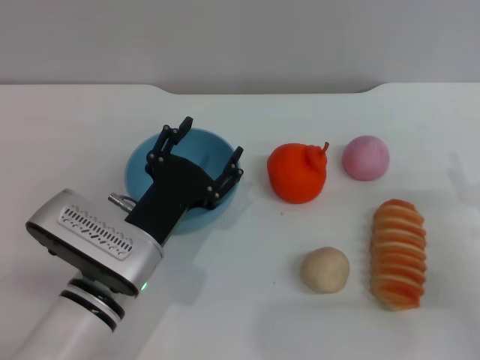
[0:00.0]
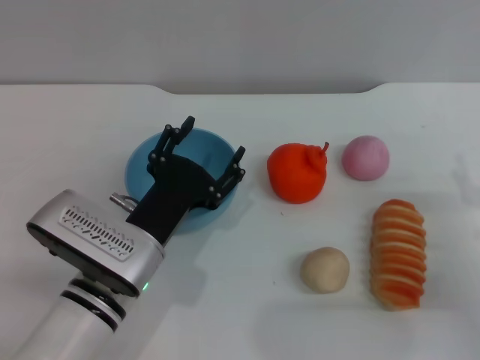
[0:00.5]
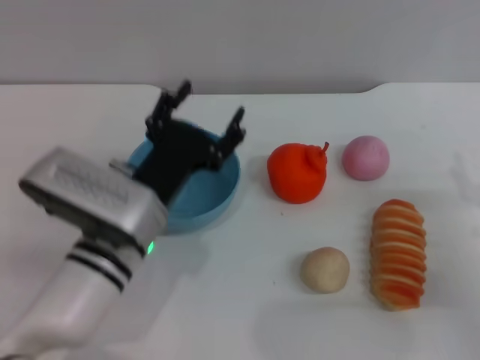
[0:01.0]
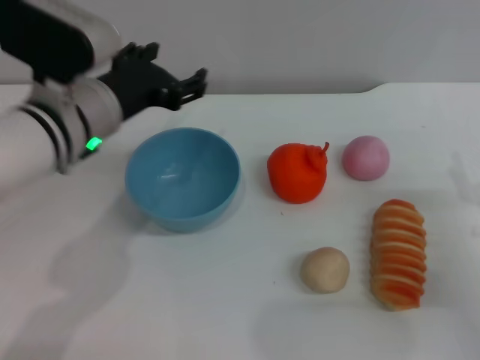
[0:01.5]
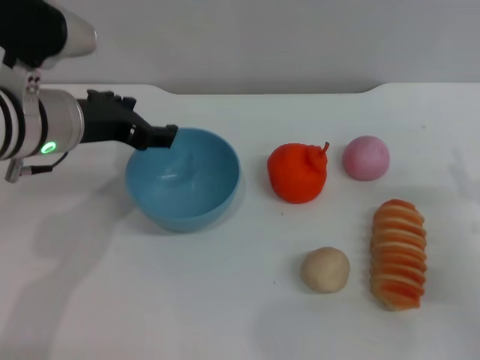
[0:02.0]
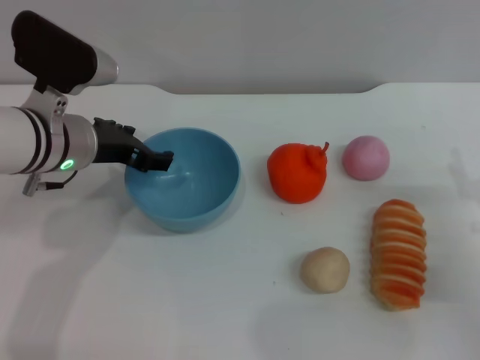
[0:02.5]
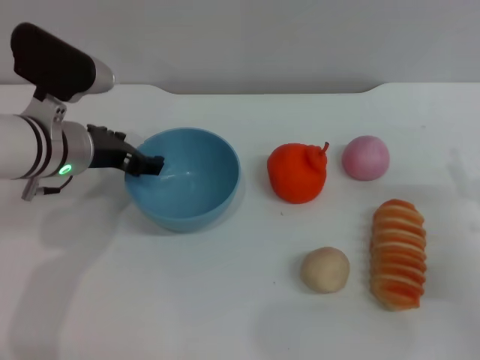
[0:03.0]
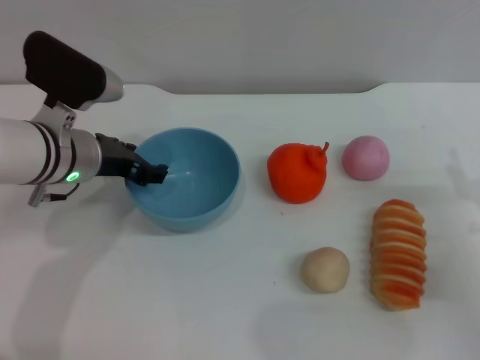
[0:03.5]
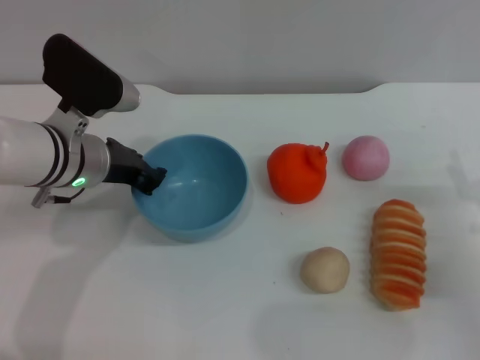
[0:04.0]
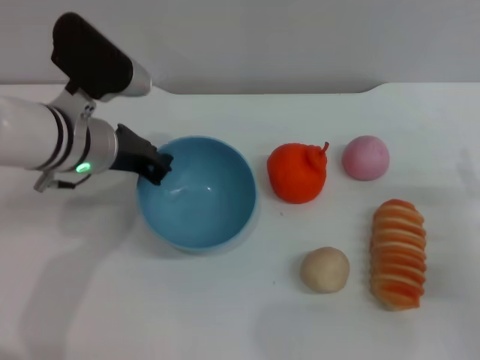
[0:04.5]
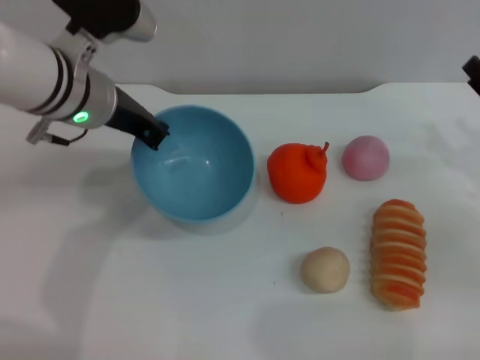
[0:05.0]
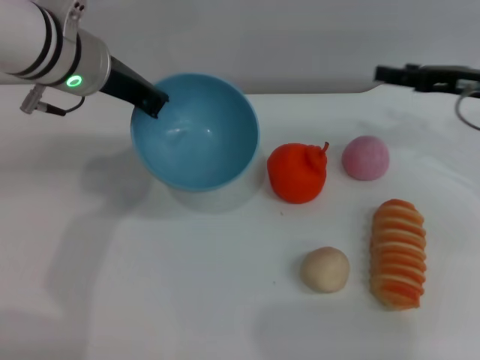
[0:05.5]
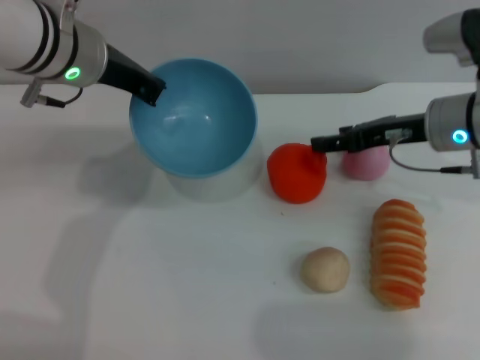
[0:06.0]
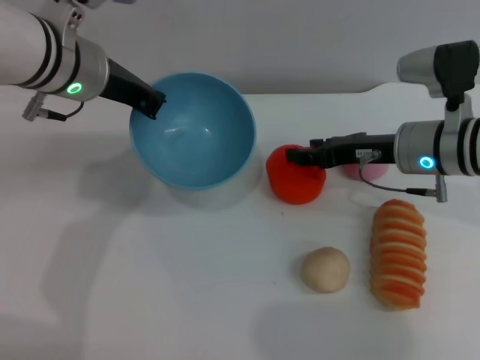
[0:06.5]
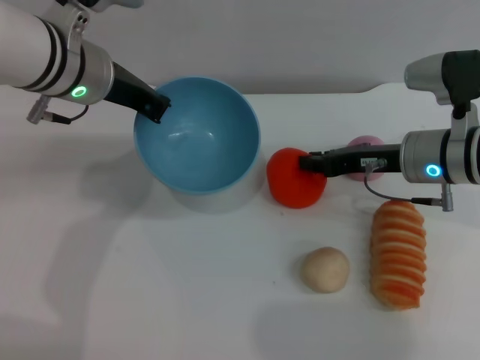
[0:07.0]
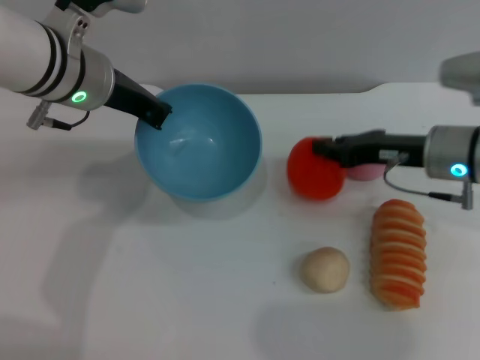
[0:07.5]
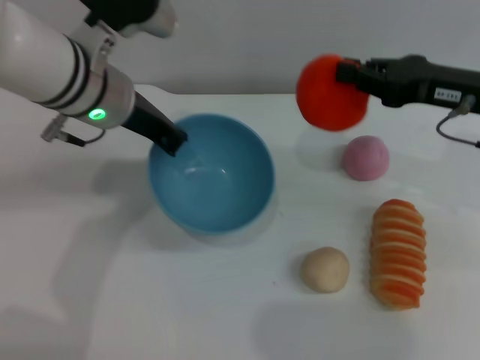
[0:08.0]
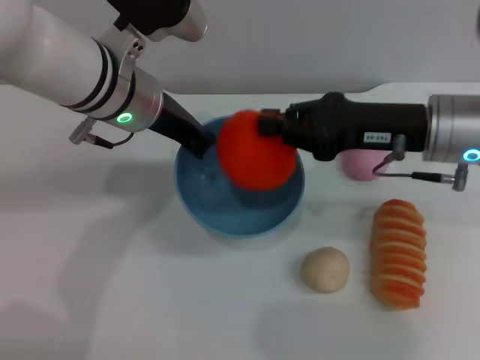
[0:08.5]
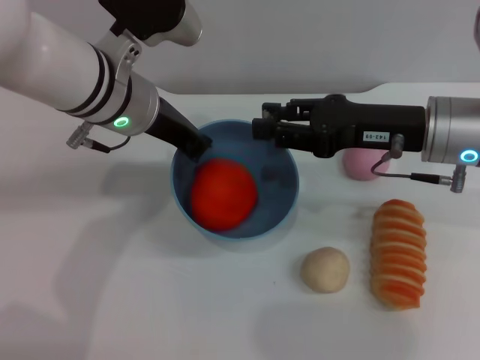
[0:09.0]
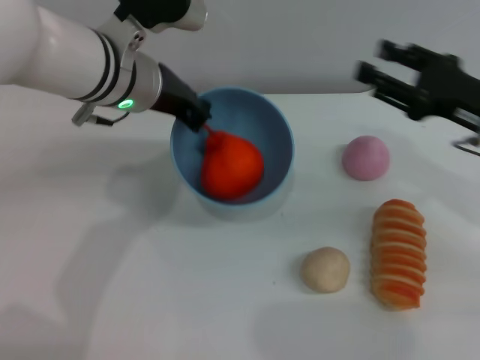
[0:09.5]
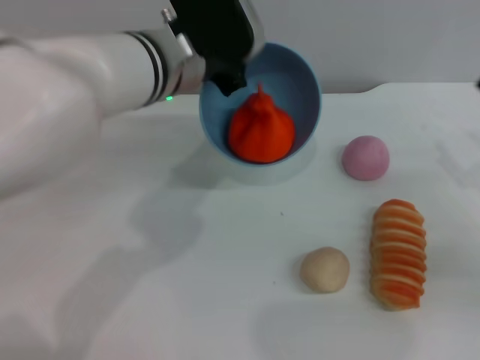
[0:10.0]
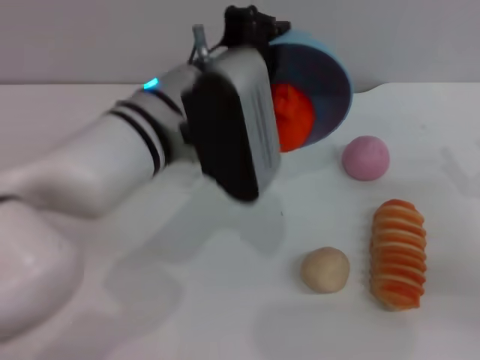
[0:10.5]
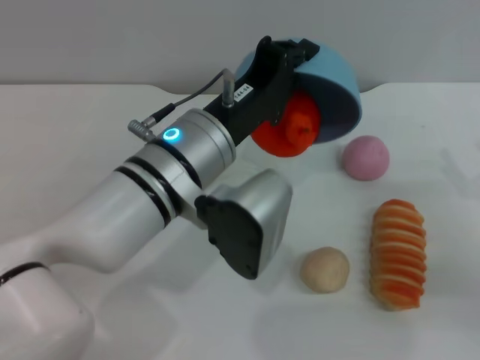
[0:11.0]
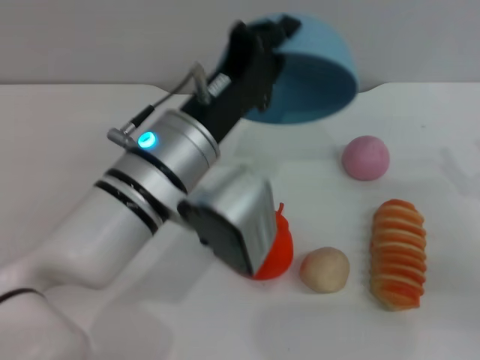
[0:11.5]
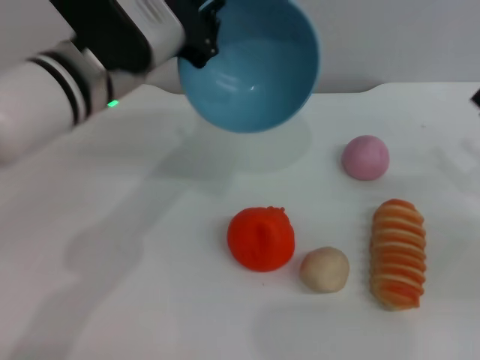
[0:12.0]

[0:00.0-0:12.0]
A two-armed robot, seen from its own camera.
Task of the whole recording: put the orange into the blue bowl and pour it out repeatedly.
Step, 0:00.0 to 0:05.0: Pick up the bowl with the left gripper.
Step, 0:05.5 to 0:07.5: Pick up the orange with the right gripper.
Step, 0:08.0 to 0:09.0: Place the orange into the bowl.
Step, 0:09.5 to 0:11.5: Pour the orange out of the bowl.
0:00.0 to 0:02.0: The left gripper goes some 20 cm upward, forward and to the left.
0:02.0 to 0:04.0: The left gripper goes roughly 5 cm downward, and closes up.
0:04.0 to 0:06.0: The right gripper is displaced forward, upward and to the left by approximately 20 cm, while the left gripper moves upward, approximately 10 cm, and closes.
0:06.0 to 0:08.0: The right gripper travels upward by approximately 5 cm, and closes.
0:08.0 to 0:10.0: The right gripper shifts about 15 cm downward, to the right and backward, and opens its fingers, while the left gripper is displaced to the right by some 5 cm.
0:10.0 to 0:12.0: The left gripper goes backward and returns, some 10 cm each way.

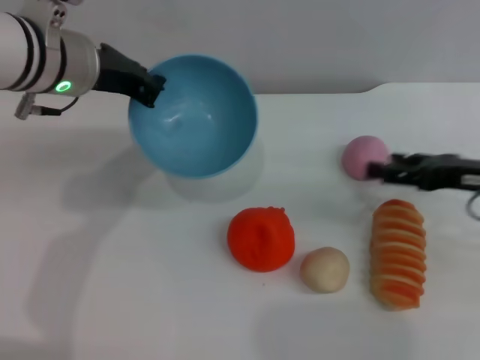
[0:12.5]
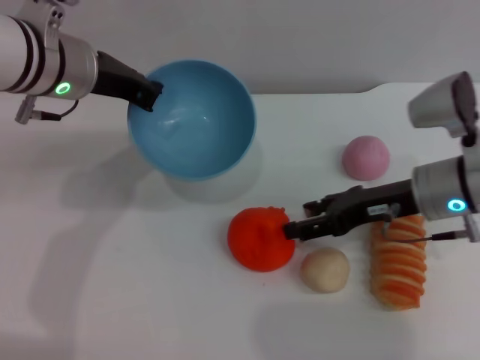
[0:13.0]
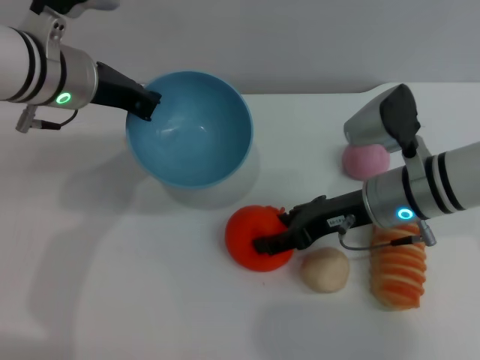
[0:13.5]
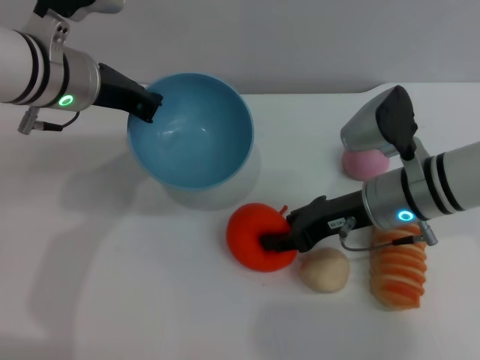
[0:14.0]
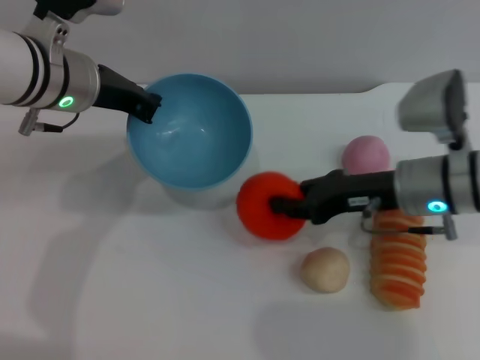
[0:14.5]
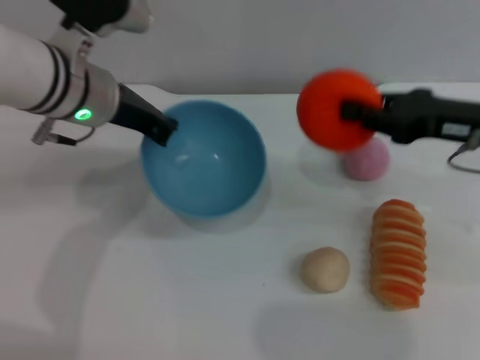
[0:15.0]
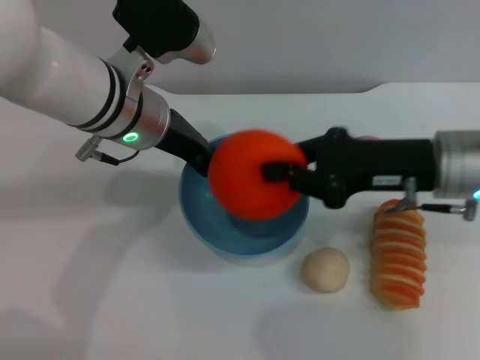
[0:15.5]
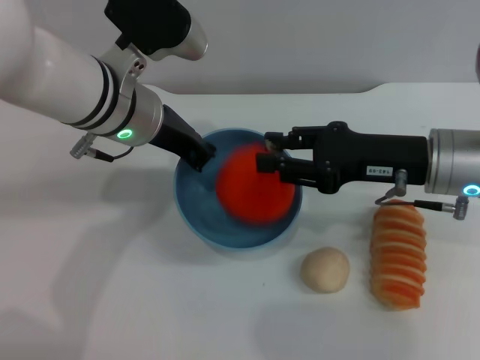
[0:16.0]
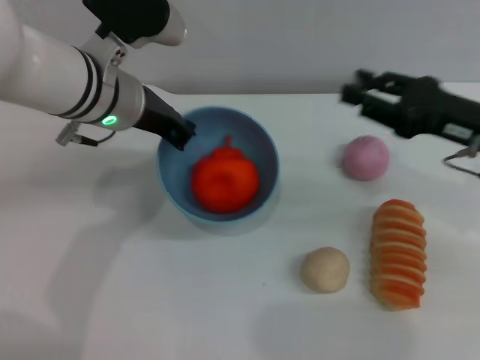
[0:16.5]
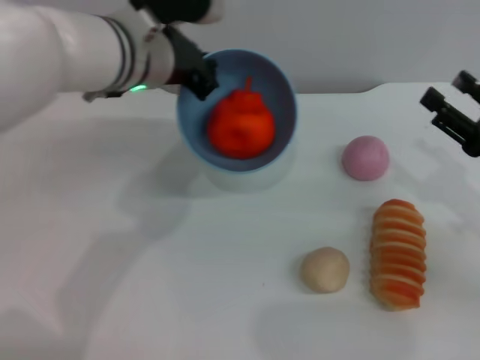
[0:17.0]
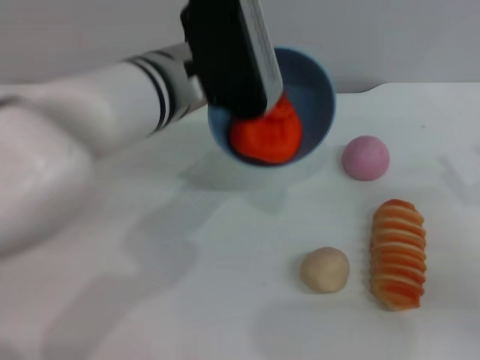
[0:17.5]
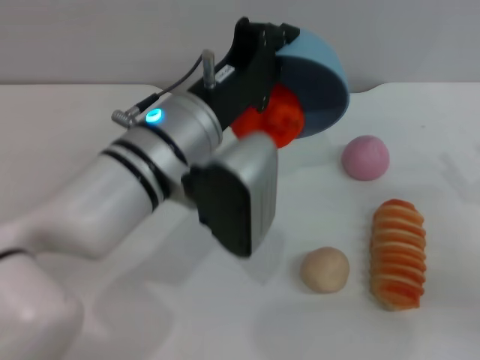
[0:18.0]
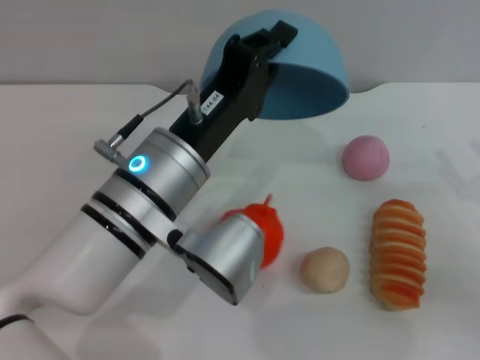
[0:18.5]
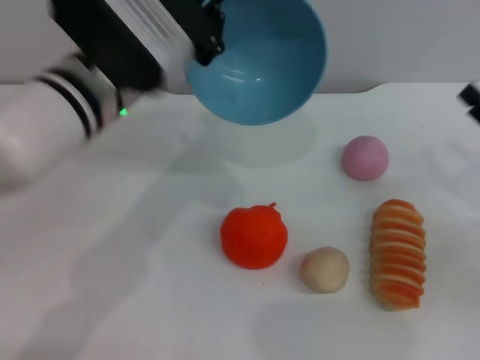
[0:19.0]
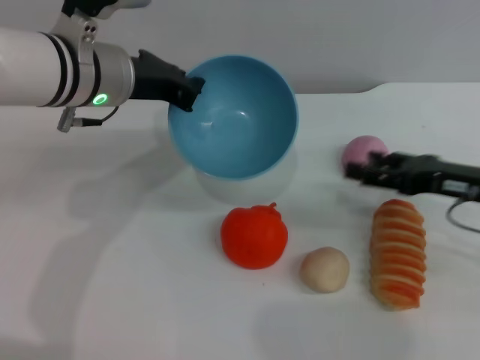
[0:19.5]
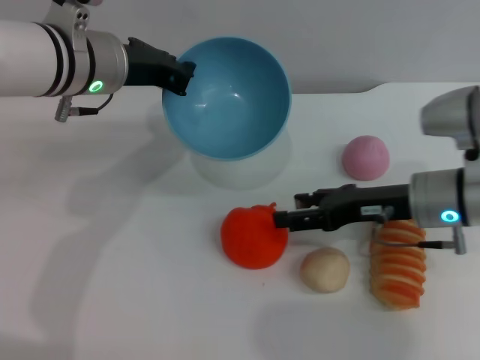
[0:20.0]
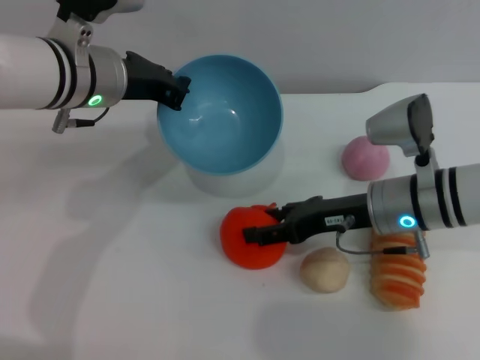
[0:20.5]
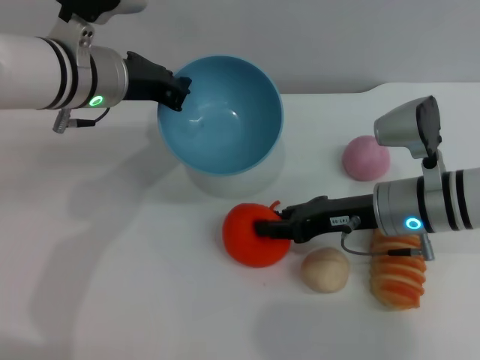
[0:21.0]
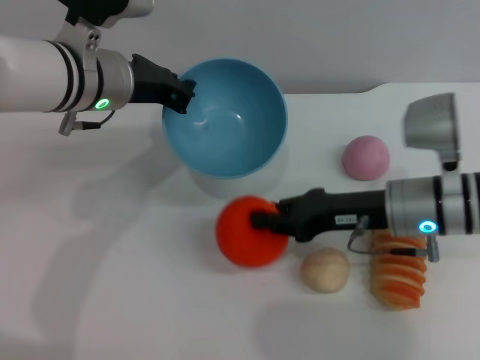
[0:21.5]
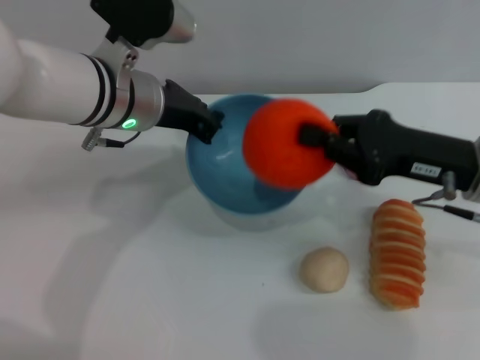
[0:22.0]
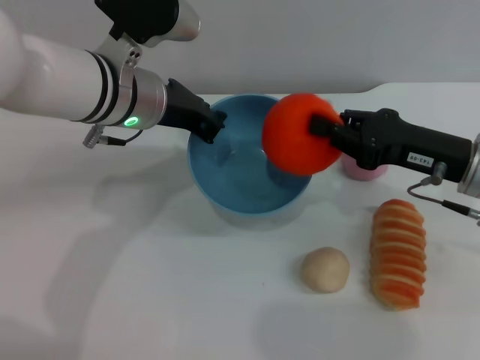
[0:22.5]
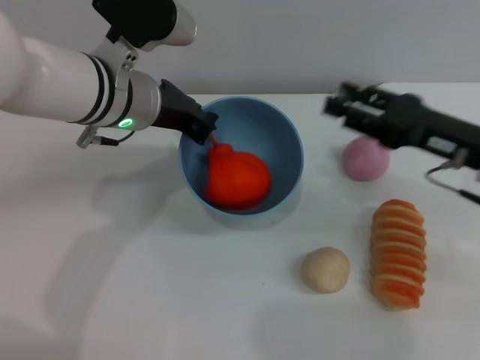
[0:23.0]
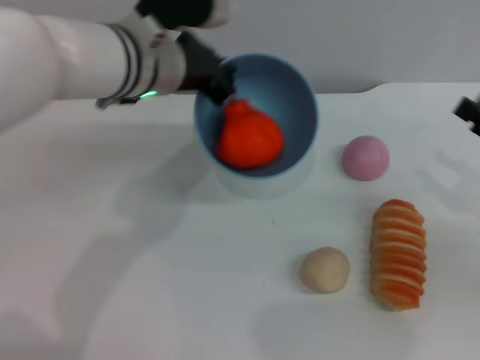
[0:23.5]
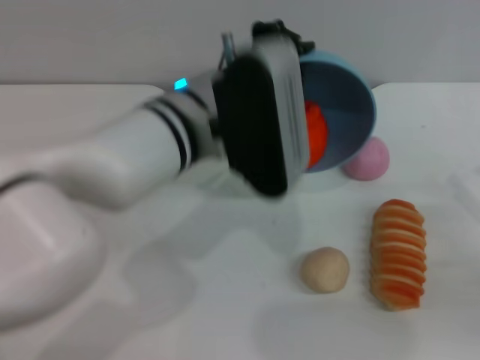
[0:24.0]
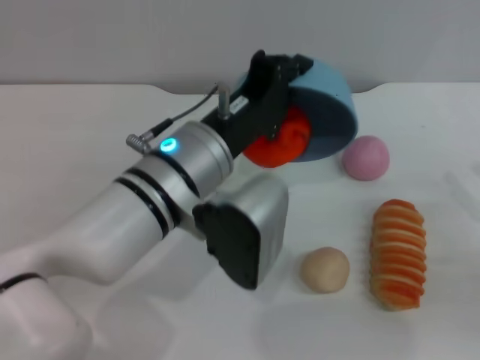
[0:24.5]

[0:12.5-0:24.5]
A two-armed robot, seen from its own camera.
Task of the whole recording: put the orange into the blue bowl and pour it out repeatedly.
Step, 0:12.5 to 0:14.5: Pick up the orange with the right gripper.
Step, 0:15.0 to 0:16.0: Place the orange into the bowl.
Step, 0:16.5 to 0:18.5: Pour the orange out of the bowl.
Step, 0:19.0 to 0:21.5: Pick up the orange with the right gripper.
Step, 0:22.0 to 0:22.5: Place the orange into the bowl.
0:12.5 to 0:14.5: The right gripper shifts roughly 10 cm to the left, and closes its fingers.
0:14.5 to 0:16.5: The right gripper moves left and right over approximately 10 cm, changing direction 2 times.
0:16.5 to 0:18.5: The right gripper moves backward, downward and to the right, about 10 cm, and opens its fingers, while the left gripper heads backward and to the right, covering about 15 cm.
0:18.5 to 0:20.5: The left gripper is displaced forward and to the left by roughly 15 cm. The right gripper moves to the left and forward, about 20 cm.
0:20.5 to 0:22.5: The right gripper goes some 5 cm to the right, and closes up.
0:22.5 to 0:24.5: The right gripper goes roughly 15 cm to the right and backward, and opens; the left gripper moves backward and to the right, about 10 cm.

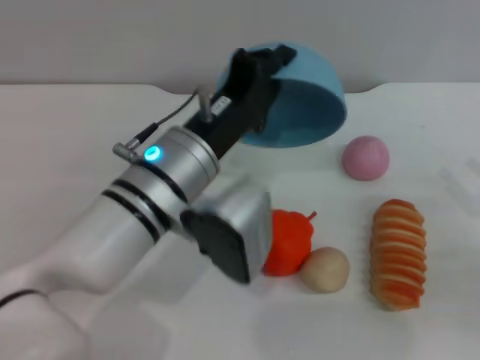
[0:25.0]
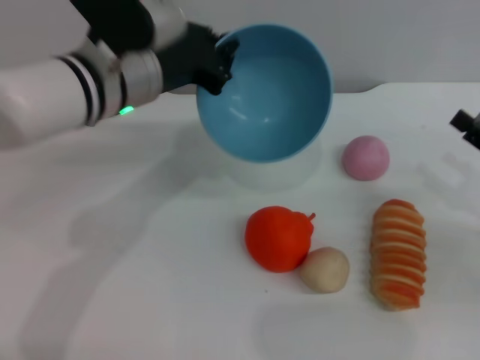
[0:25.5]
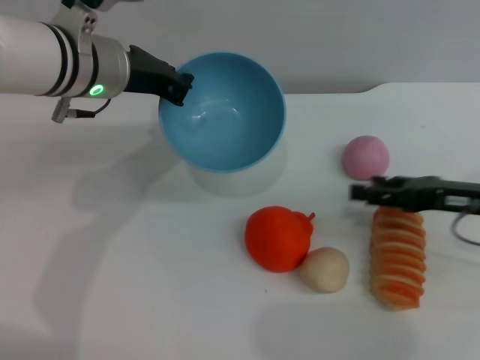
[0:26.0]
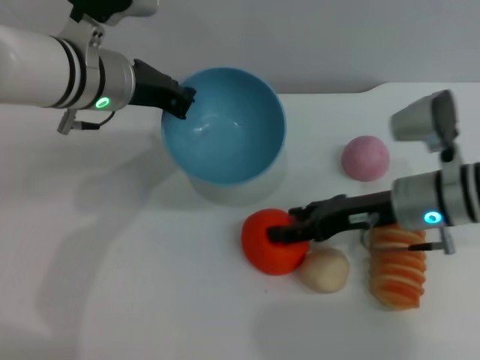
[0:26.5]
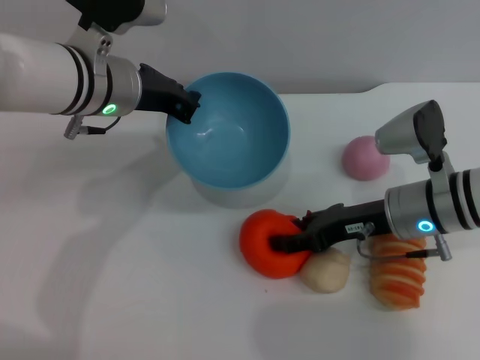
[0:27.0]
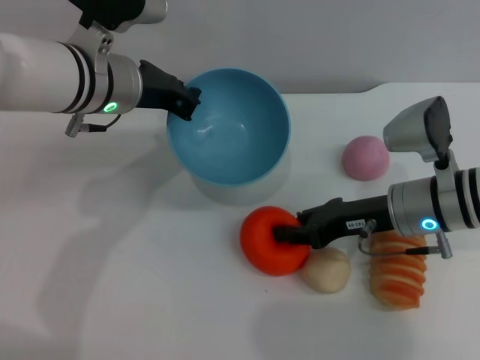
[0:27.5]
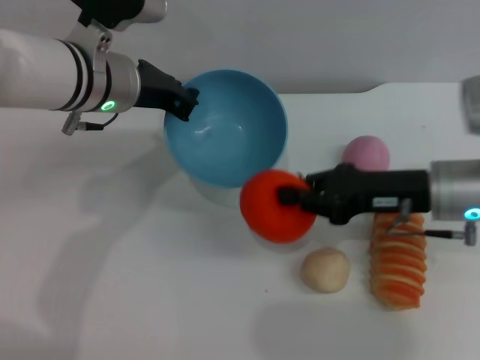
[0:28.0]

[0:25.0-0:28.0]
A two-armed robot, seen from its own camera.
Task of the whole recording: put the orange into the blue bowl and pour it out repeatedly.
Step, 0:25.5 to 0:27.5: Pick up the orange with the right gripper.
0:25.0 to 0:26.5: The right gripper goes roughly 20 cm to the left and forward, while the left gripper goes roughly 15 cm forward and to the left.
0:26.5 to 0:28.0: The right gripper closes its fingers.
